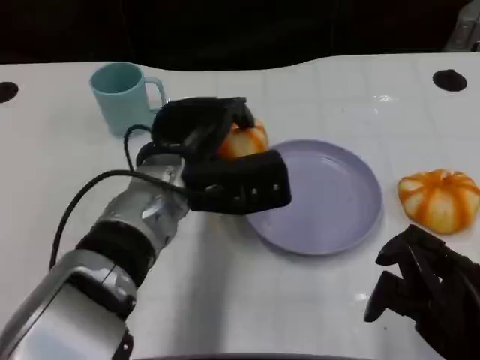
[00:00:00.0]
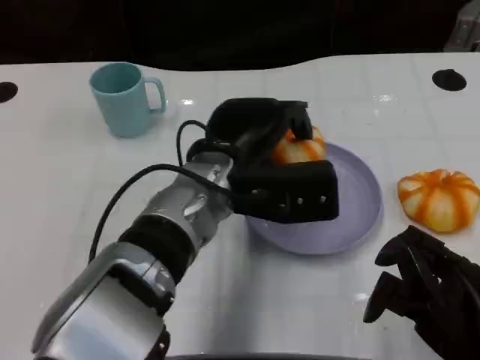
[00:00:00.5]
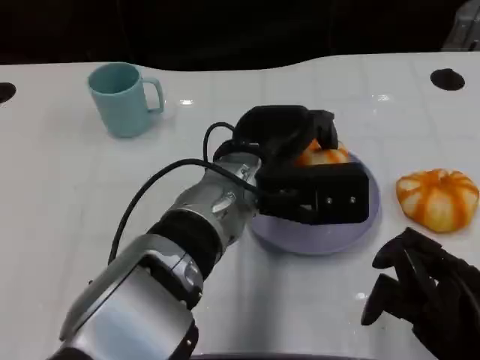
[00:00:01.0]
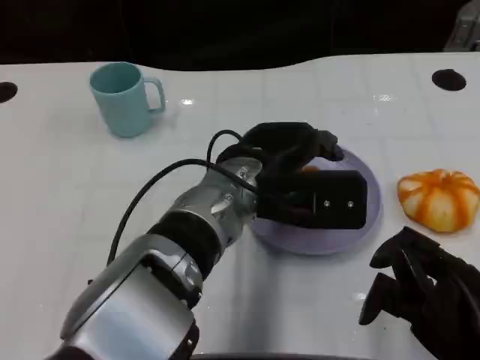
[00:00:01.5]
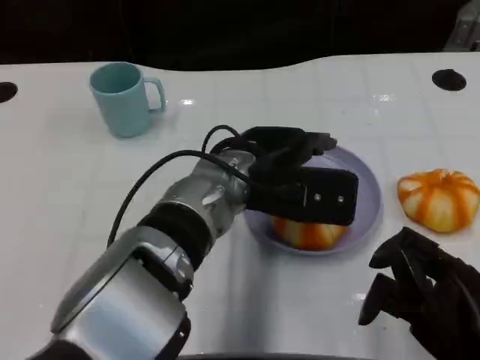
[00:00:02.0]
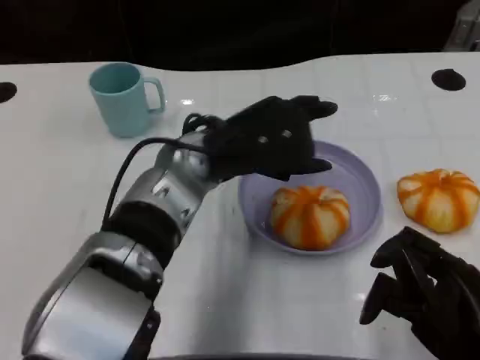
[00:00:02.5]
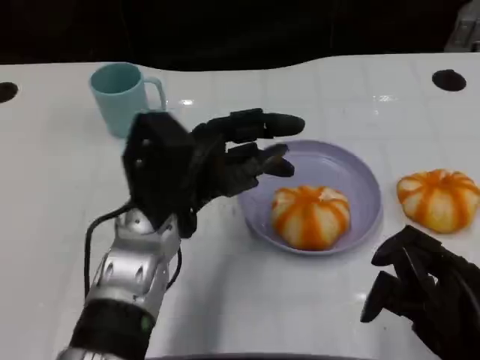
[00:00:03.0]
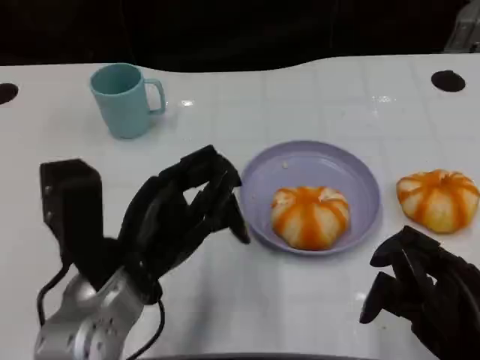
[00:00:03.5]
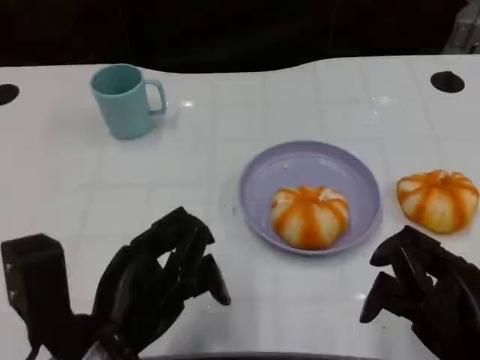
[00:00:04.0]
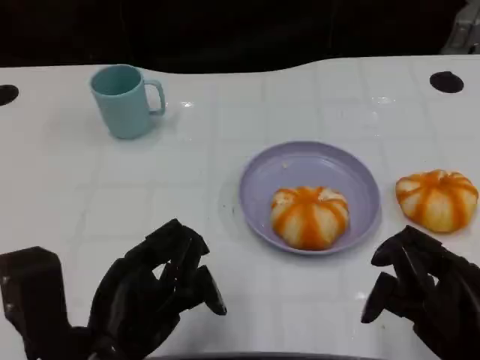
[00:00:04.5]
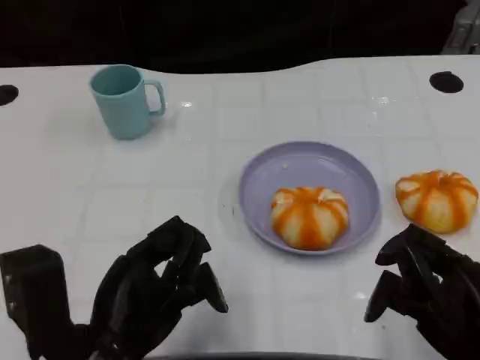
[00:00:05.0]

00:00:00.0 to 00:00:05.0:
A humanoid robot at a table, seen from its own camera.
Task of the whole recording: Grasp the bread from the table and place it into the plate.
00:00:02.5 to 00:00:05.0: The left hand travels backward and to the left by roughly 20 cm.

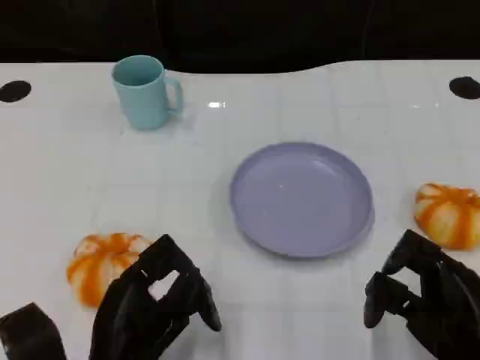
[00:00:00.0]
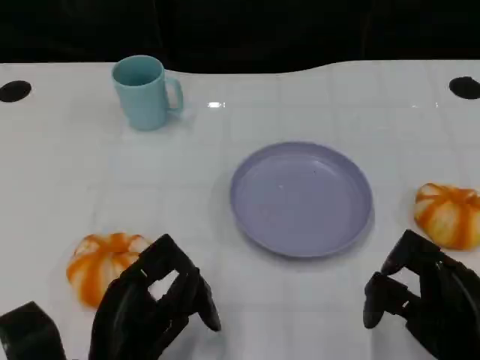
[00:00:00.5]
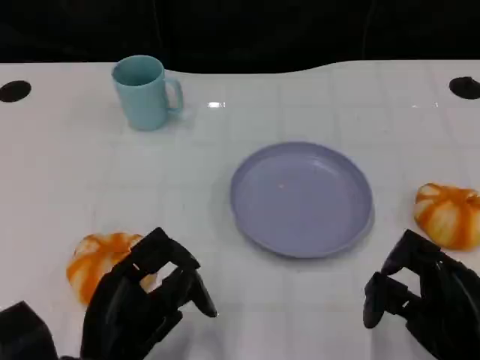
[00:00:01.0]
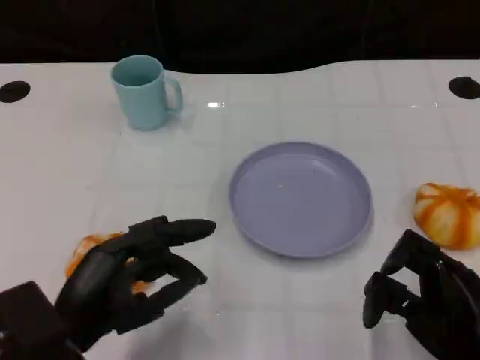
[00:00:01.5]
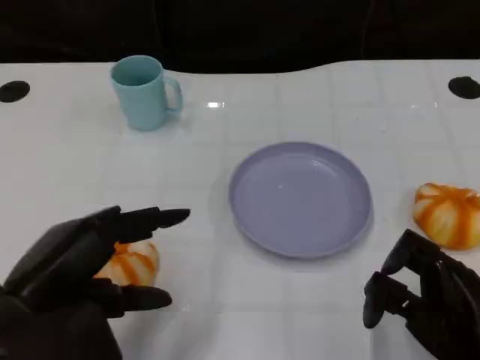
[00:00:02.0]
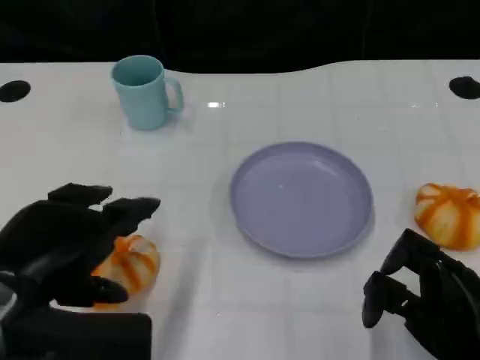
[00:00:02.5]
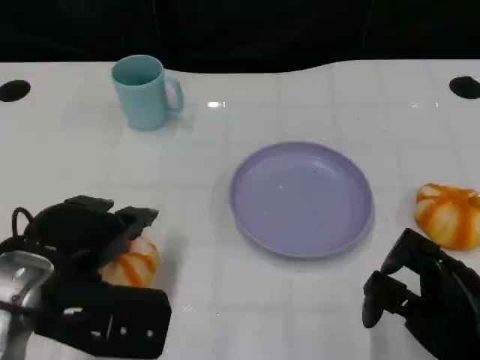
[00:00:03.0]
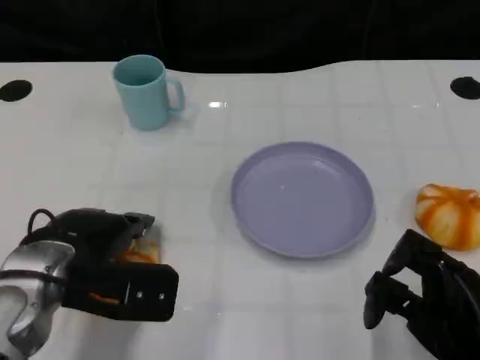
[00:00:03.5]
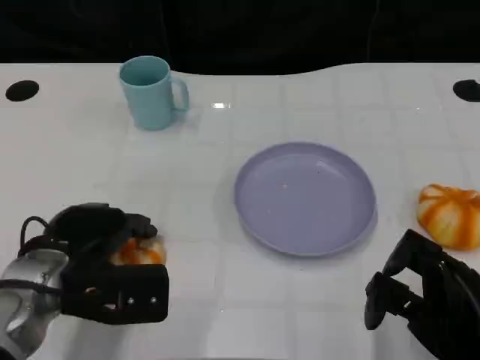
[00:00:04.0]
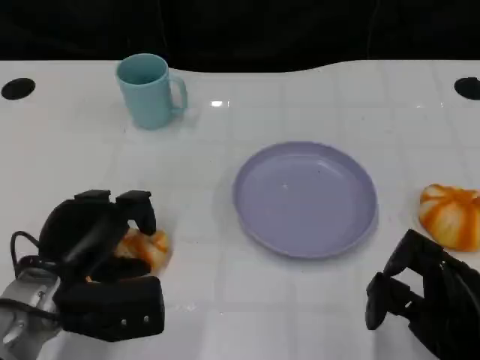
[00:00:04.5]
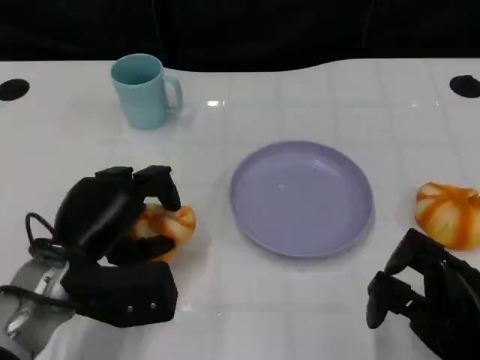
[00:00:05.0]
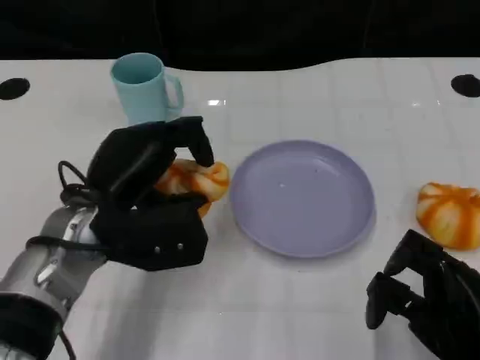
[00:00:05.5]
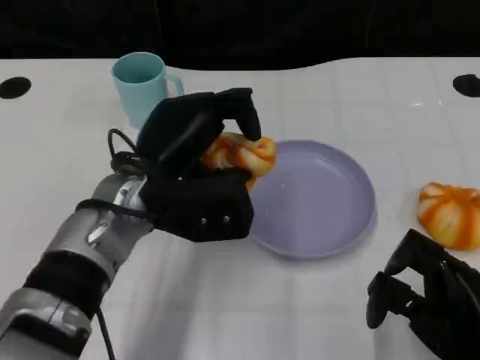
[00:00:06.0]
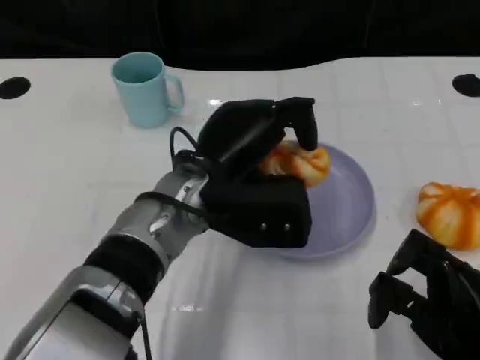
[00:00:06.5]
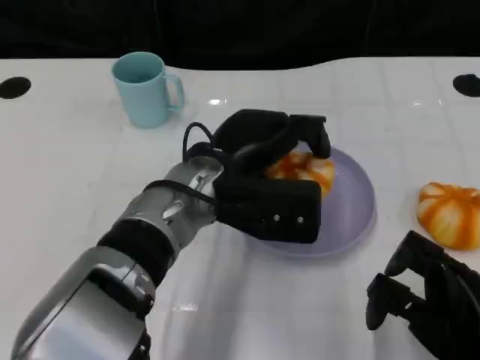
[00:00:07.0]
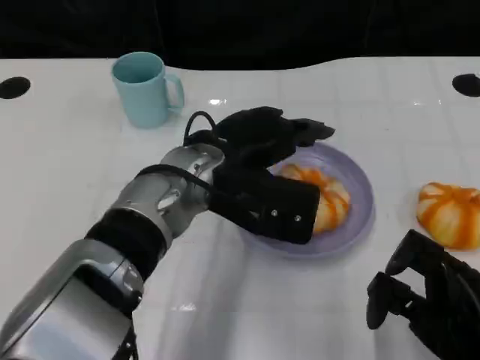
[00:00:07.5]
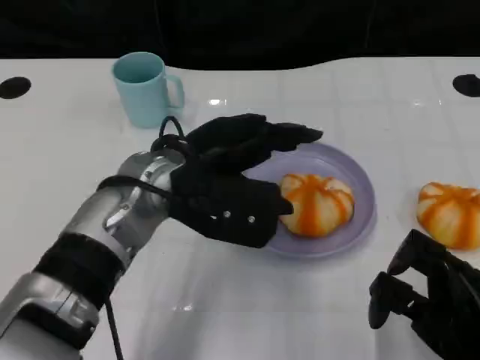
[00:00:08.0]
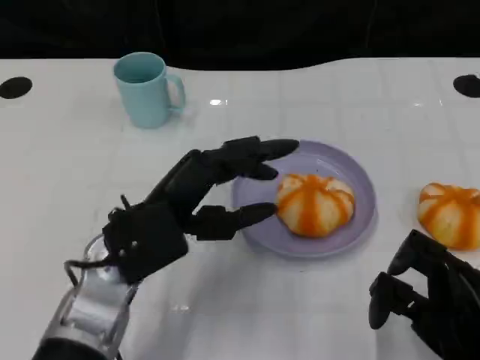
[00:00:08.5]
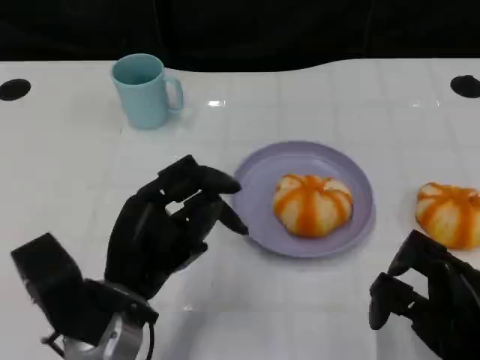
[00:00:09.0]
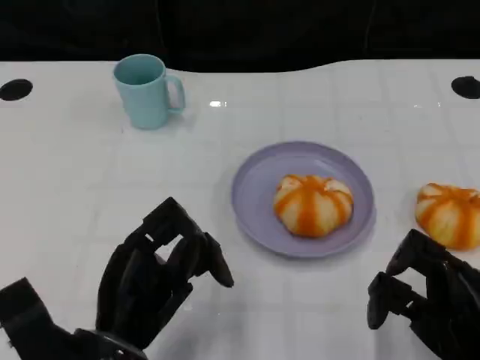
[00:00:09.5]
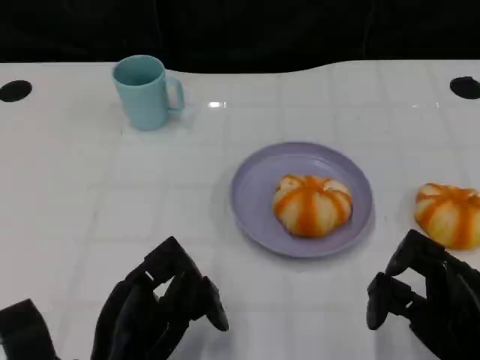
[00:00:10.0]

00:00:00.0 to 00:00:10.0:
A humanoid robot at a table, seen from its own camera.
Task of the whole recording: Grasp the bread from the table and place it into the plate.
00:00:00.0 to 00:00:02.0: The left hand shifts roughly 10 cm upward and to the left.
00:00:02.0 to 00:00:04.0: The left hand is displaced forward and downward by roughly 10 cm.
00:00:04.0 to 00:00:06.0: The left hand travels to the right and upward by some 10 cm.
00:00:08.0 to 00:00:10.0: The left hand goes approximately 20 cm backward, downward and to the left.
